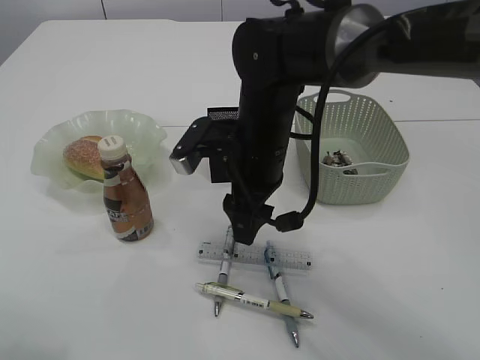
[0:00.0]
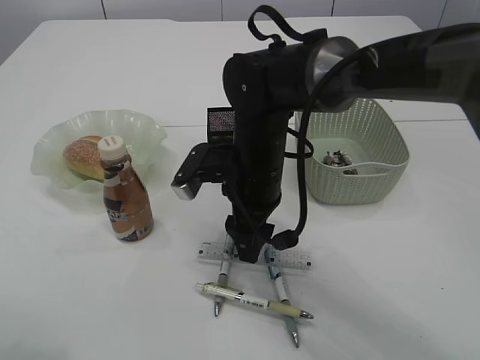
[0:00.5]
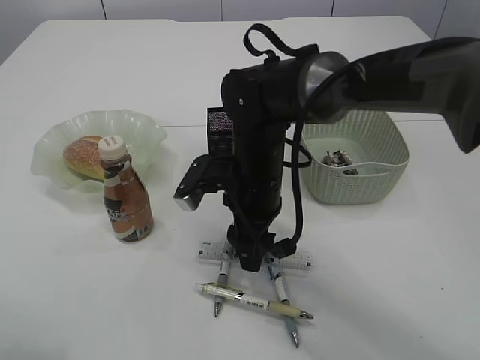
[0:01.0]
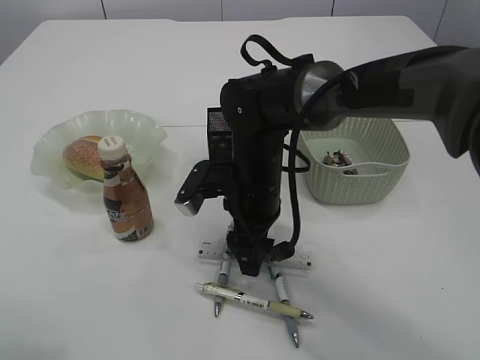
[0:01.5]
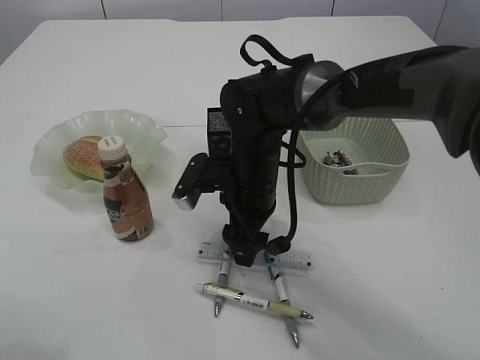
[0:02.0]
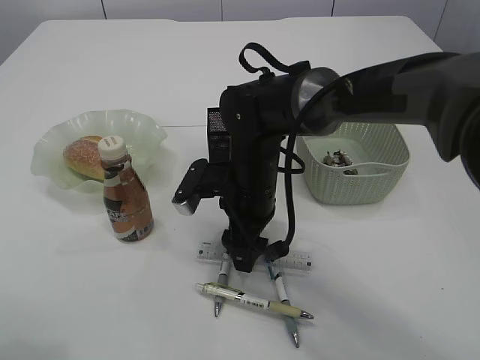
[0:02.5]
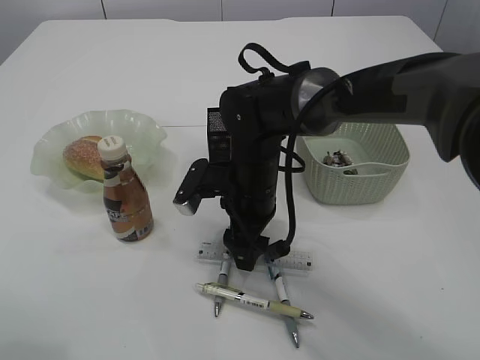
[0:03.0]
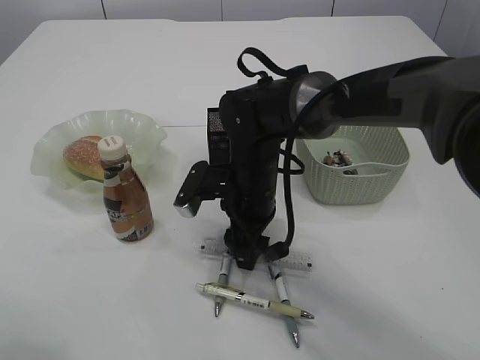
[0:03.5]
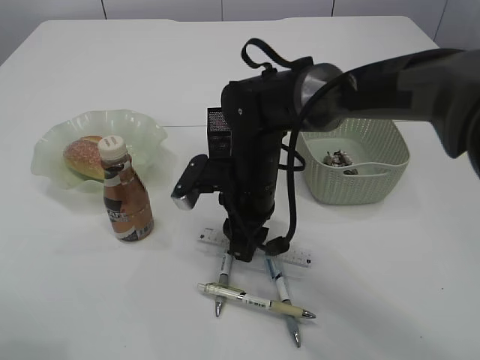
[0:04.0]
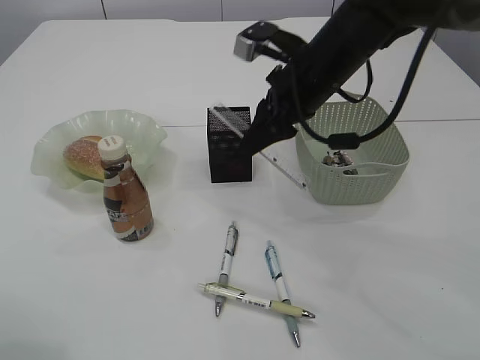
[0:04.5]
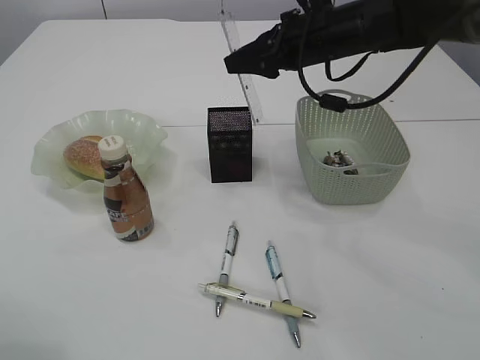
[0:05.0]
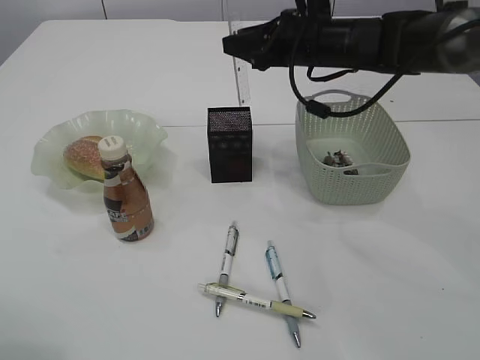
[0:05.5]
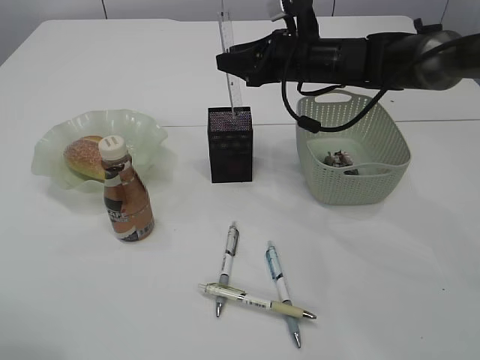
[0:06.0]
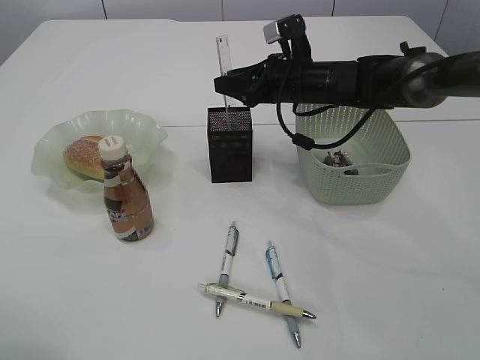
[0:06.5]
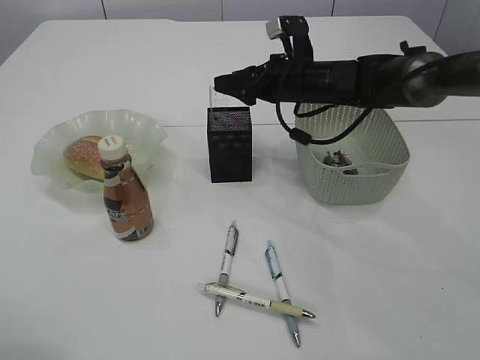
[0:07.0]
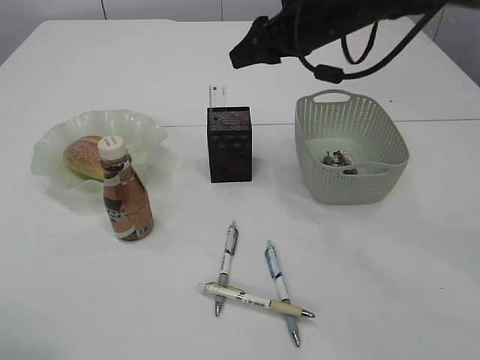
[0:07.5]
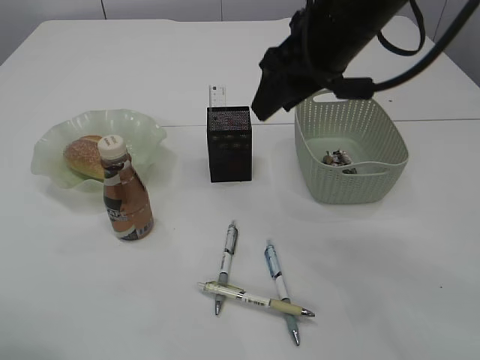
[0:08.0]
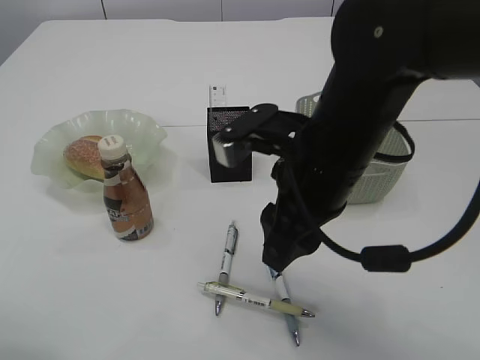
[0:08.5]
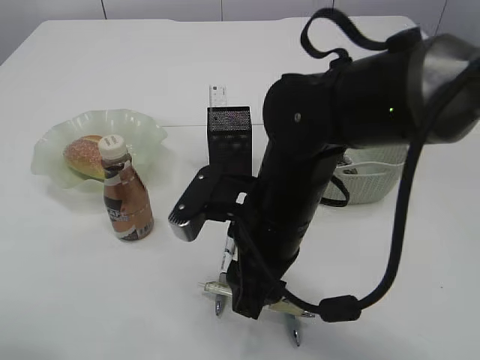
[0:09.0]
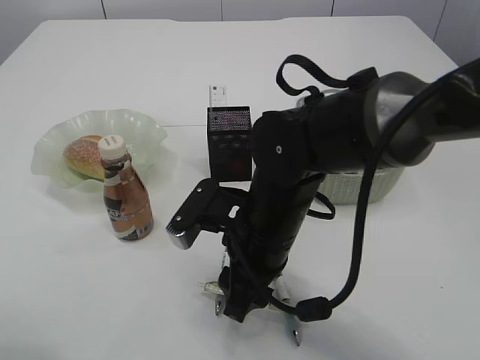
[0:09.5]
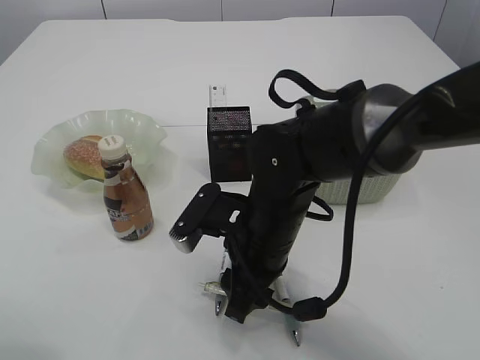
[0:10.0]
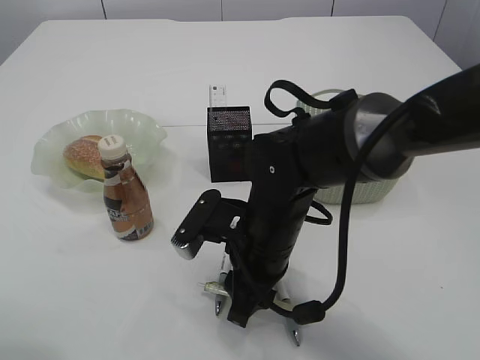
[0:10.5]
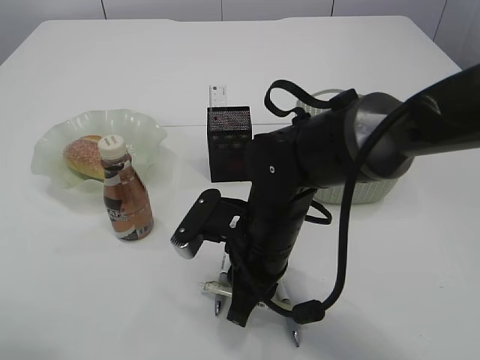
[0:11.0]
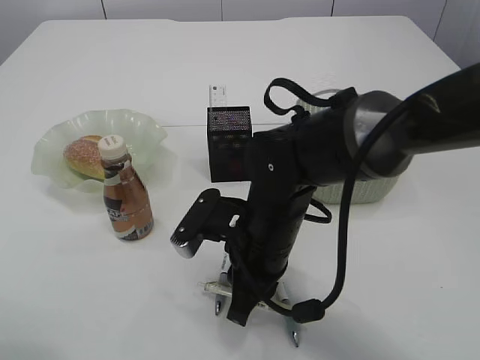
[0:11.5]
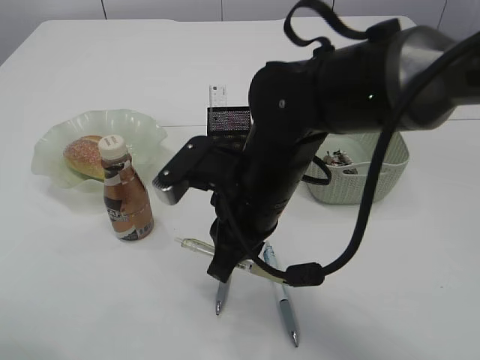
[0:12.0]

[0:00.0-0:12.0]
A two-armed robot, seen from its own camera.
Step, 0:00.0 to 0:04.5: pick up the ruler.
Step, 0:05.0 to 0:07.0: Place the ruler into the pen holder.
0:00.0 to 0:02.0: The right gripper shifts about 5 cm downward.
0:02.0 to 0:04.0: The right gripper closes.
0:04.0 to 0:06.0: The right gripper shifts approximately 20 cm forward, to the right and upward.
0:06.0 to 0:08.0: The right gripper goes roughly 15 cm backward and upward.
0:08.0 to 0:10.0: The right gripper travels downward, backward and to the left by approximately 20 cm.
0:10.0 to 0:12.0: The right gripper travels upward by about 5 cm, and closes its fingers.

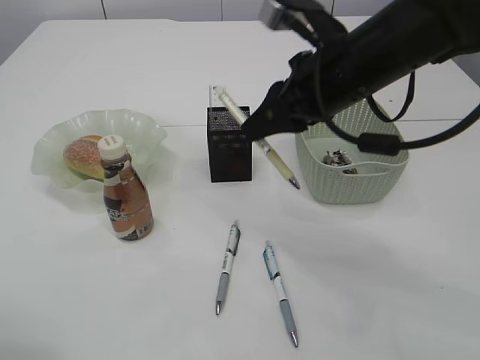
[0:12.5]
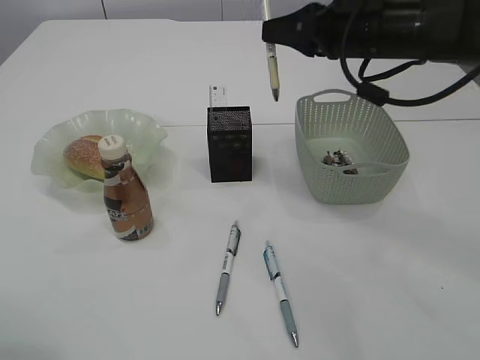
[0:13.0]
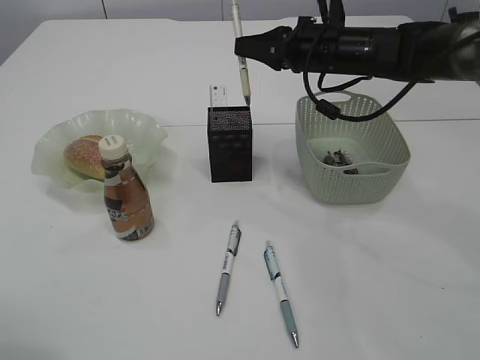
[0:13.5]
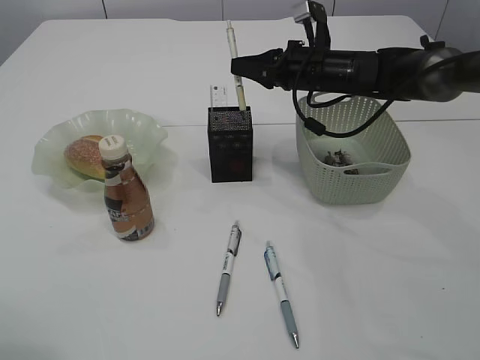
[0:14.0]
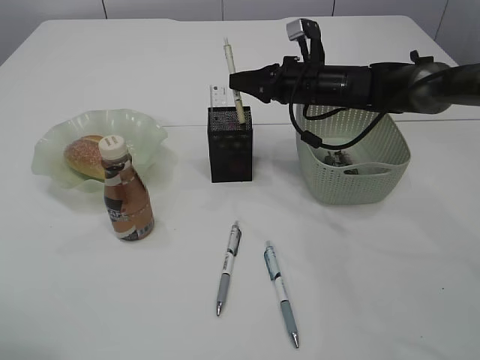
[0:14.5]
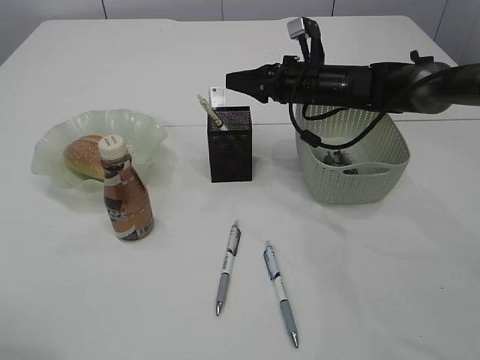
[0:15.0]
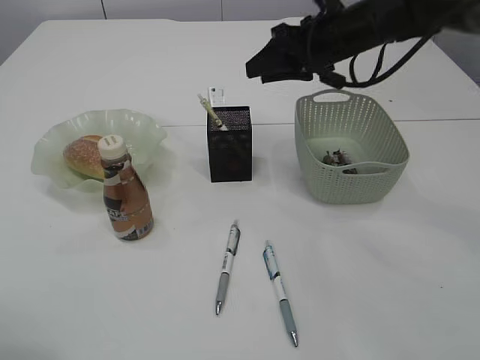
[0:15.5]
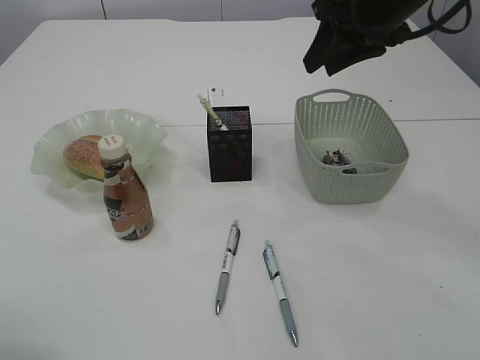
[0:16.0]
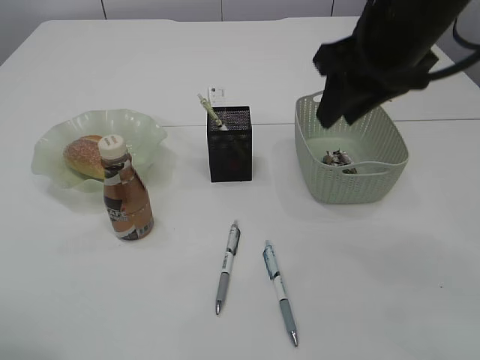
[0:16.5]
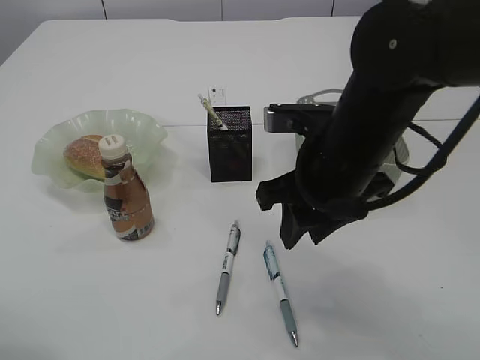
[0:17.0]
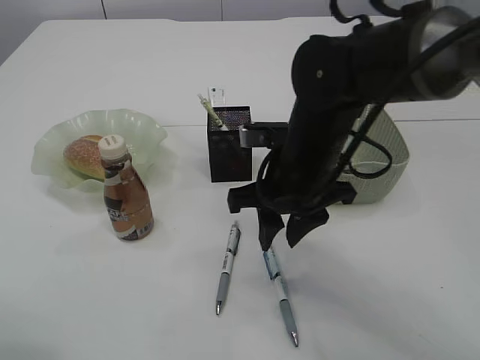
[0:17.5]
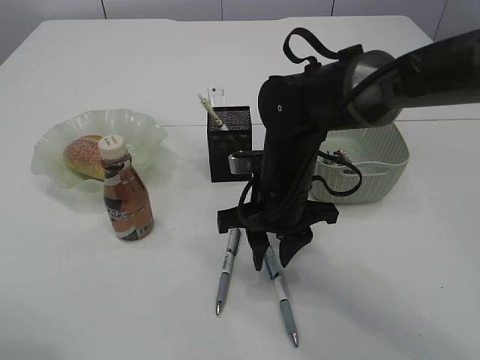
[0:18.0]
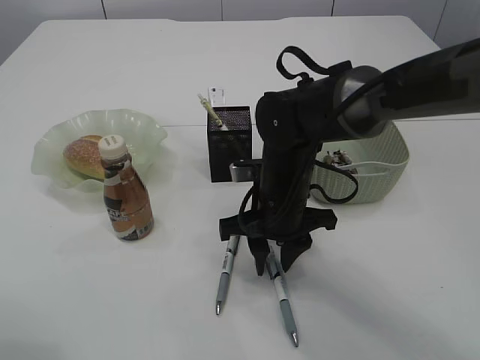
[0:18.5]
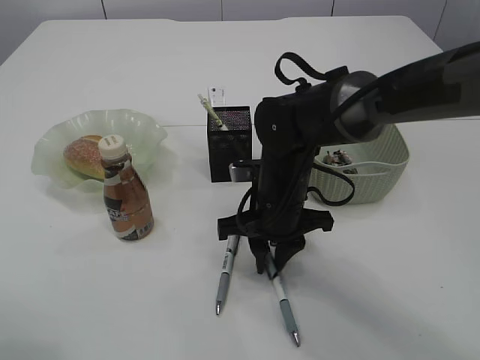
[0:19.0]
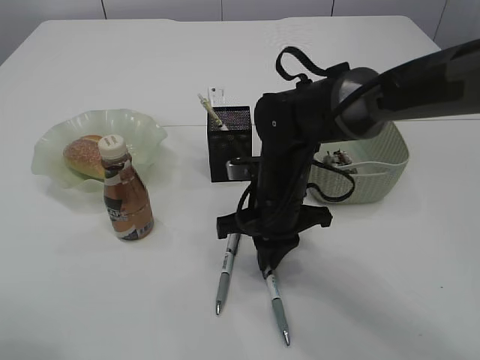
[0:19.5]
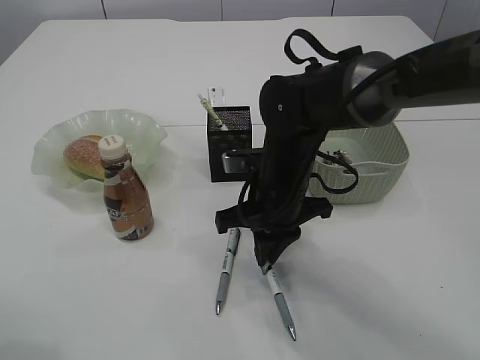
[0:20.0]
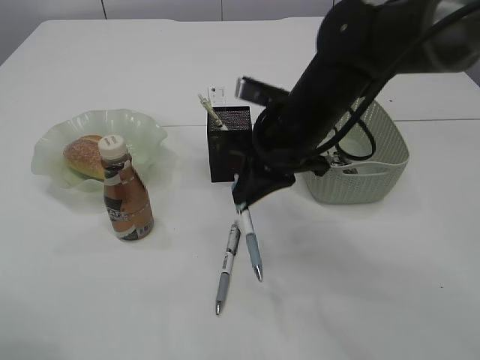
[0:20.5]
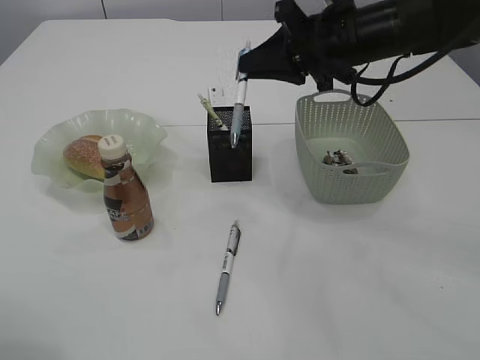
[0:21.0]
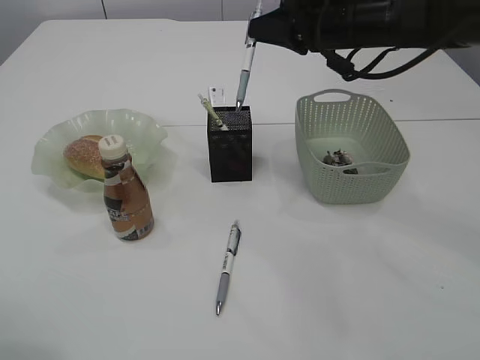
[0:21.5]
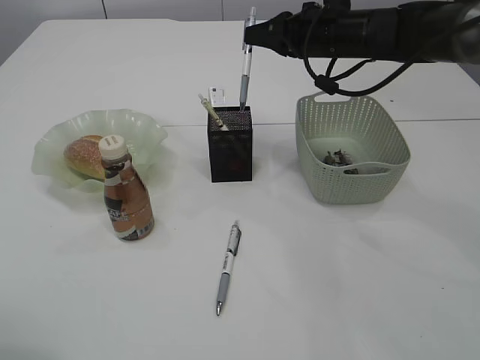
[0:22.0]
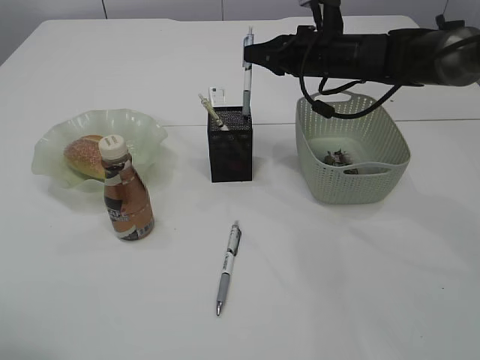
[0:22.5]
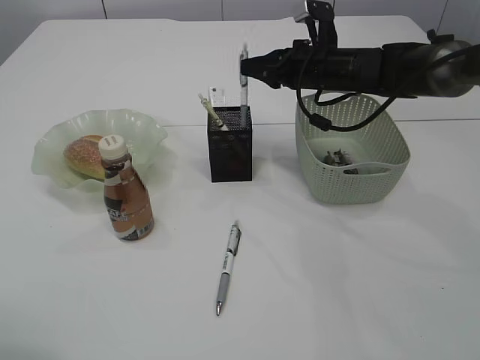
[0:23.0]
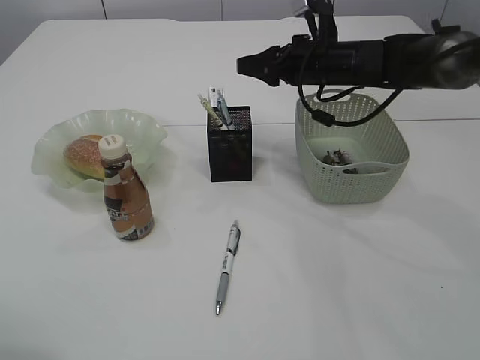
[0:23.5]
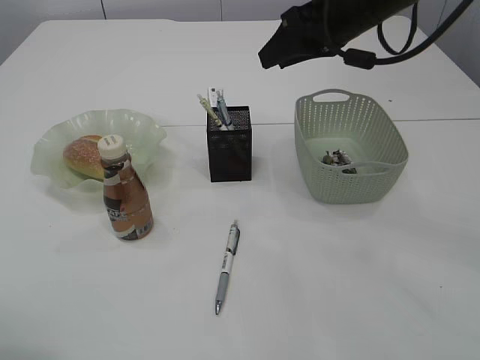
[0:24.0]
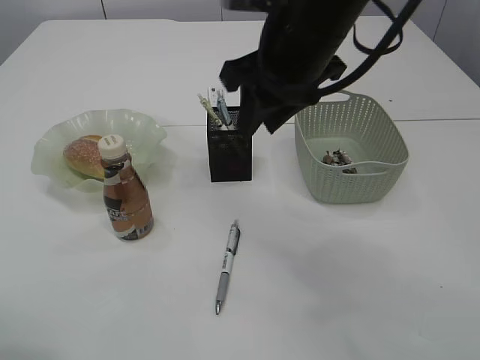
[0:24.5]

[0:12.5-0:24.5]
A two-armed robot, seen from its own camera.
Step, 0:13.0 to 0:15.5: Place the pen into the pen holder.
Step, 0:16.0 to 0:20.5: Pick up the pen with right arm.
Step, 0:21.0 to 0:23.5: Place the pen into the pen holder.
0:12.5 to 0:14.5: The right gripper is displaced forward and downward by roughly 20 cm.
0:14.5 to 0:16.5: The right gripper goes some 25 cm backward and upward, and opens up.
0:16.5 to 0:18.5: The right gripper shifts approximately 20 cm downward and to the left.
0:18.5 to 0:20.5: The right gripper goes approximately 10 cm upward, and closes its fingers.
0:20.5 to 0:22.5: The right gripper shifts some 15 cm forward and to the right.
0:22.5 to 0:24.5: The right gripper moves backward, upward and to the left, about 20 cm, and opens its fingers.

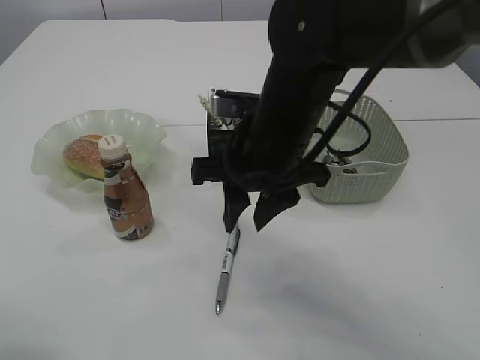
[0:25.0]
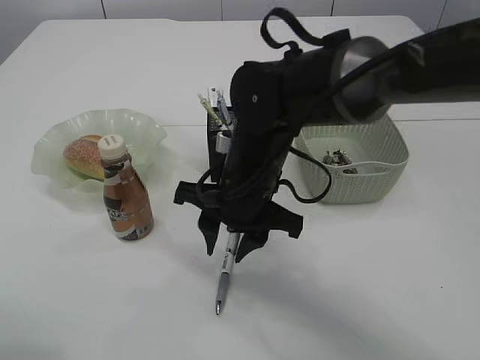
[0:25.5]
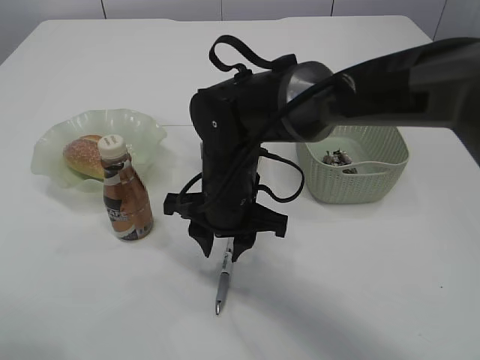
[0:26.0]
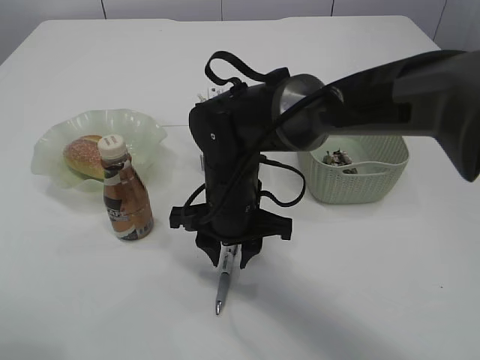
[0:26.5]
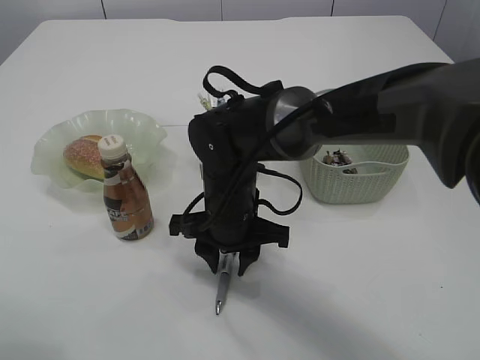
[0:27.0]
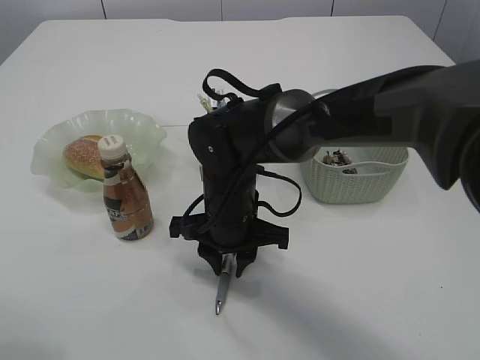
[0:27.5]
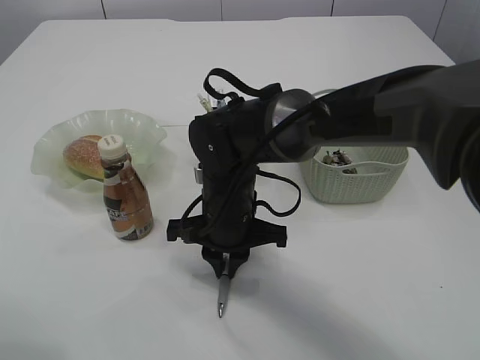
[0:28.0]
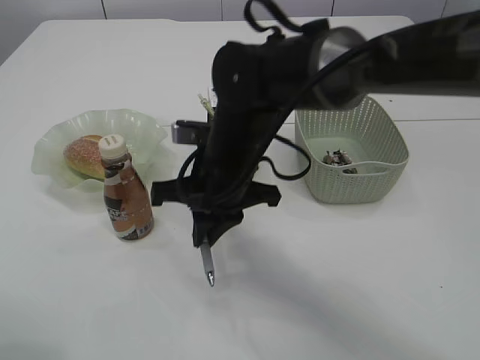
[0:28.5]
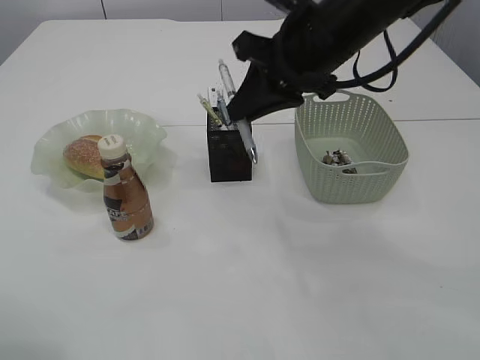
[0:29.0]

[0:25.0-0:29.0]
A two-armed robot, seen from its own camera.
Step, 0:25.0 to 0:28.5: Pick up the pen with right arm.
0:25.0 to 0:27.0: The right gripper is displaced downward and to the left by about 10 cm.
0:27.0 to 0:29.0: The right gripper goes about 20 cm upward and to the right, and closes.
